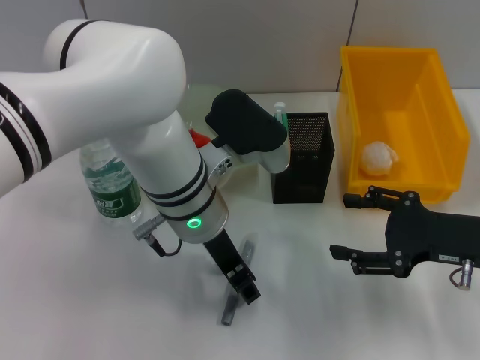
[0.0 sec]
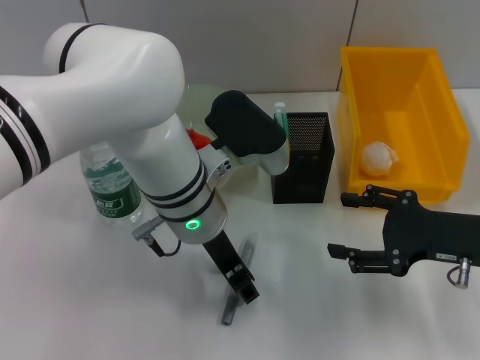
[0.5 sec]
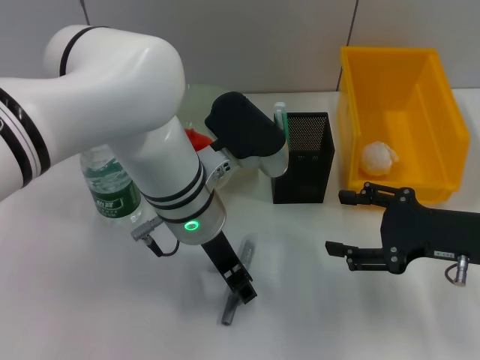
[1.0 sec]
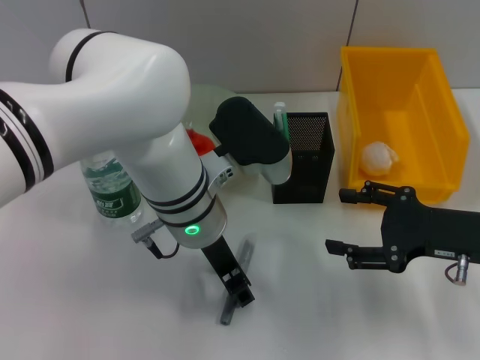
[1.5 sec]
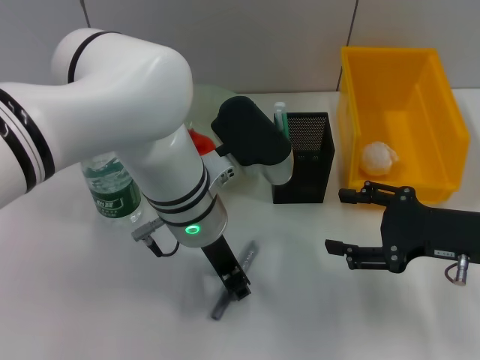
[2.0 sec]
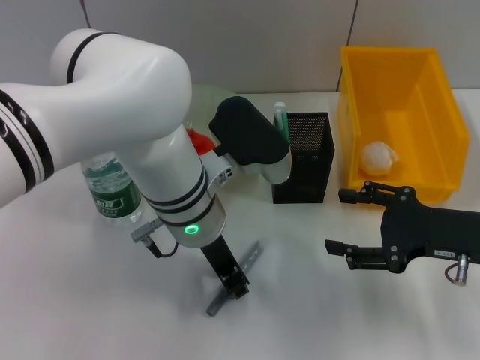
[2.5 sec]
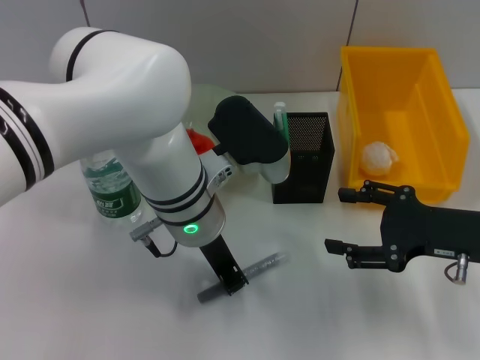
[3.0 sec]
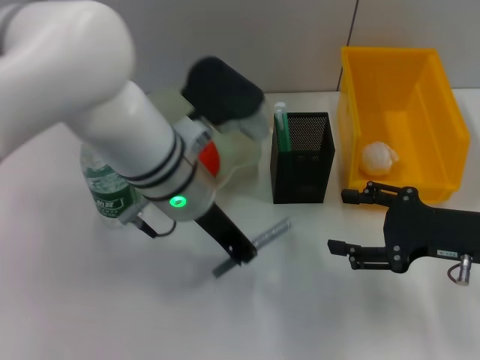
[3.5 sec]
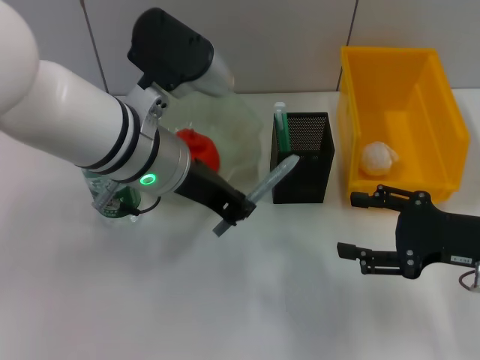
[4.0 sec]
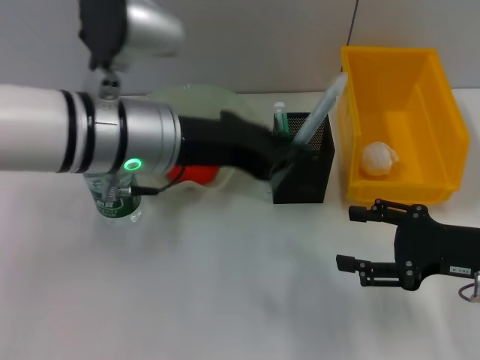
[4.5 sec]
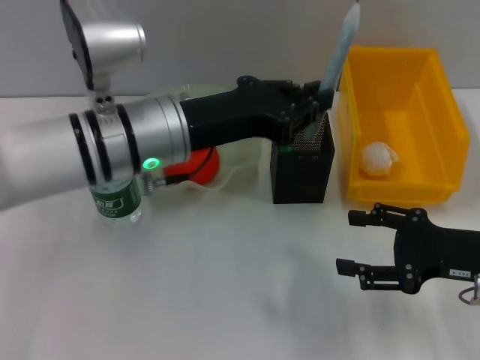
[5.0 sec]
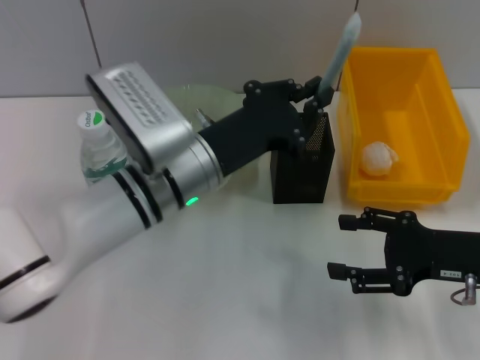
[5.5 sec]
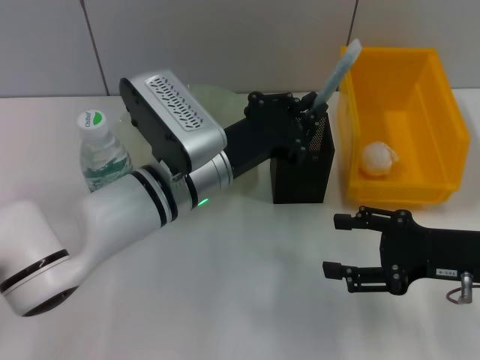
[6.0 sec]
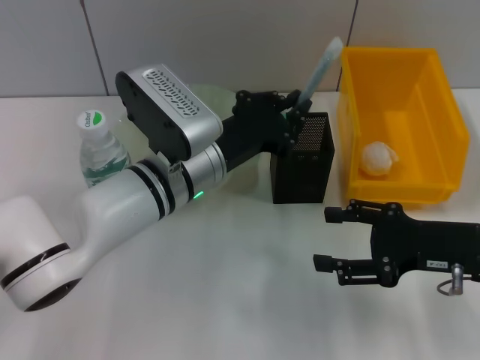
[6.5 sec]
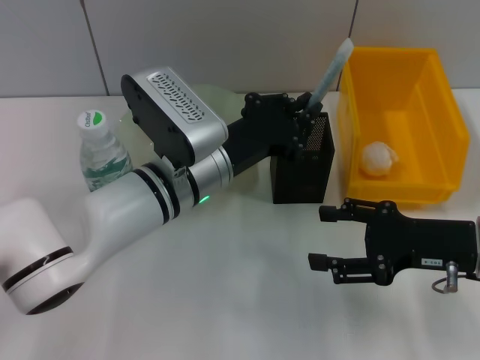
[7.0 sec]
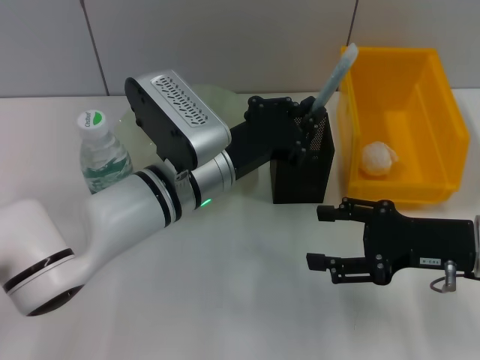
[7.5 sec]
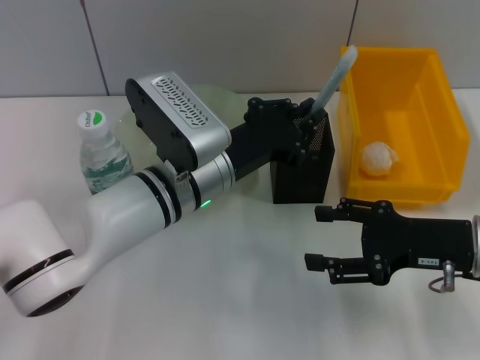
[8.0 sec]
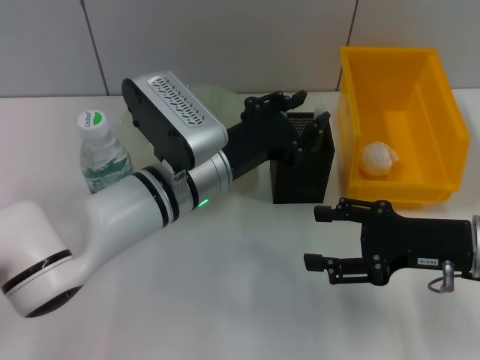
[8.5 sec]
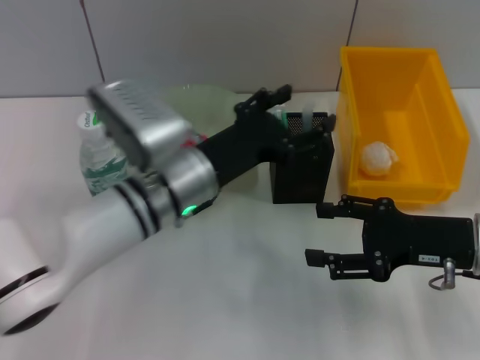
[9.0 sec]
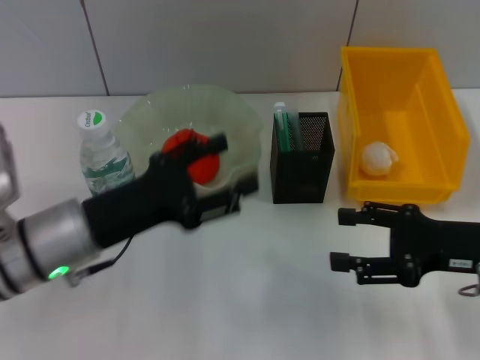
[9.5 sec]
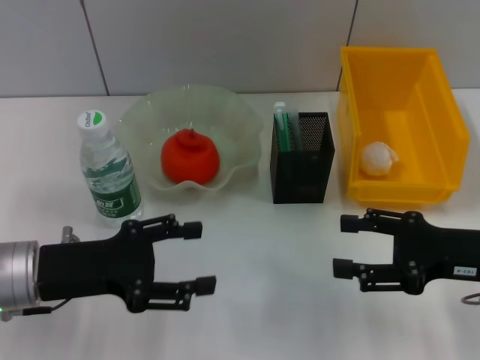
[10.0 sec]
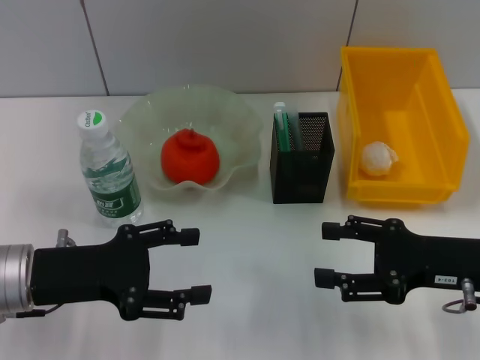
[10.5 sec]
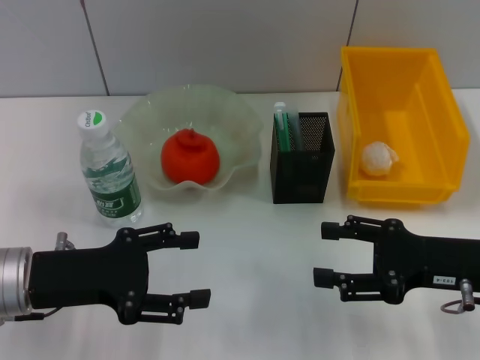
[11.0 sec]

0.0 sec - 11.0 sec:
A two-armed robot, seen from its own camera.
Step, 0.0 sec - 3.0 sec: Grab the gray glue with the left hand.
Step, 3.5 sec - 9.0 sec: Place the gray glue into the pen holder with the left hand.
0.0 sec - 2.0 sec: Both grippers stay put.
2.0 sec - 3.5 sec: The left gripper closes.
5.5 sec - 7.5 sec: There are only small adjustments of the grippers.
7.5 sec - 9.0 sec: The left gripper opens up.
9.0 sec - 11.0 sec: The left gripper goes roughly 15 cm to the left and backward.
